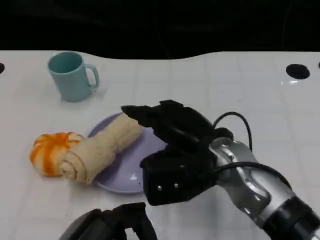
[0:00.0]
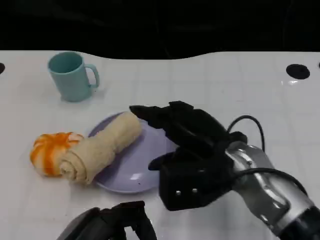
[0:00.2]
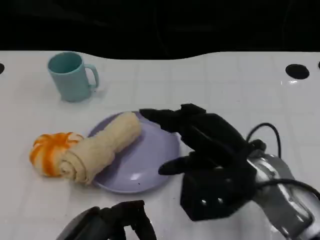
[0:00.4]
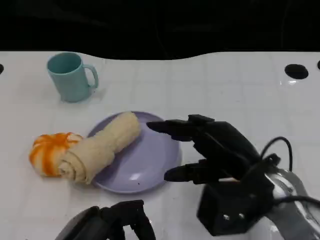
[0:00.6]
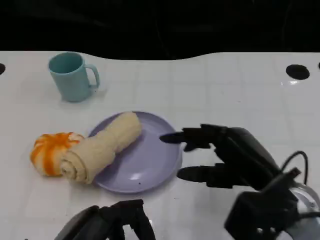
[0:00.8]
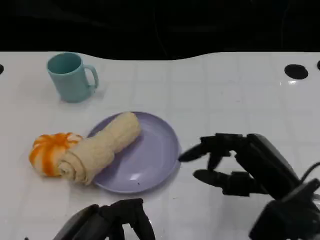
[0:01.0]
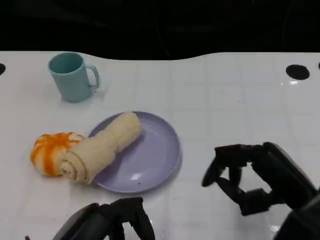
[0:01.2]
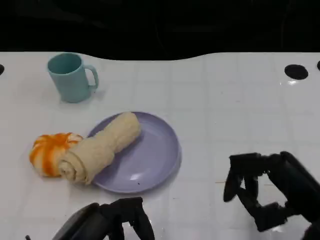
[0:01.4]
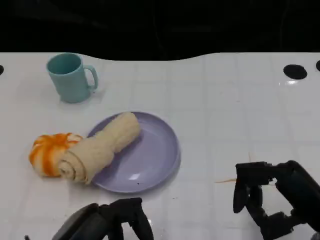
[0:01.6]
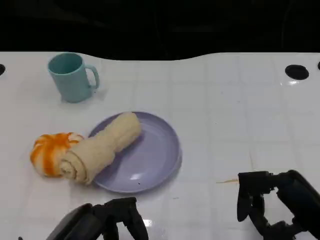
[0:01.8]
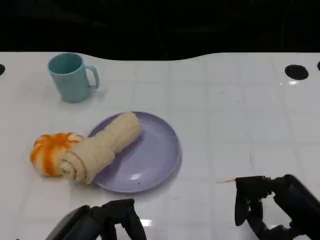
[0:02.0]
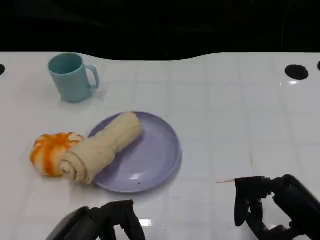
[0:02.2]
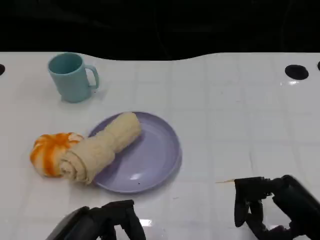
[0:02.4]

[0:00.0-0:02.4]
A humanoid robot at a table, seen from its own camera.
Task of the whole recording: Grasp the towel on the left side of the plate with the left hand and place it into the plate.
0:00.0 to 0:01.2: The right hand is displaced to the right and backward by some 15 cm.
0:01.2 to 0:02.4: The hands move only a little.
